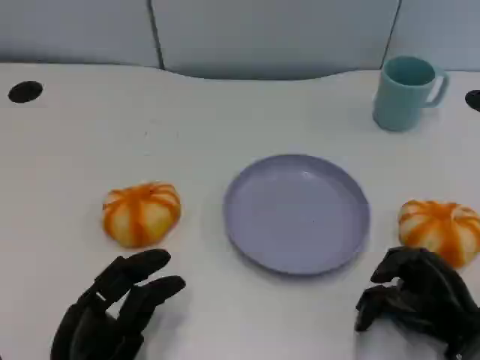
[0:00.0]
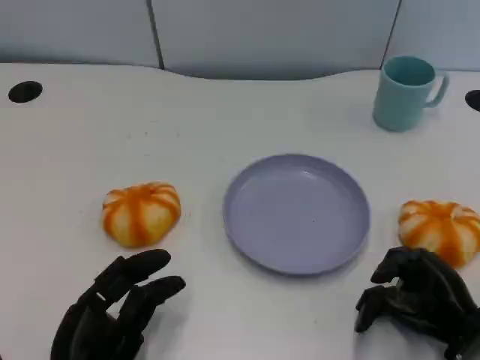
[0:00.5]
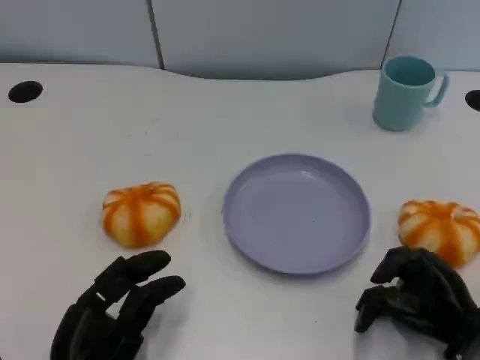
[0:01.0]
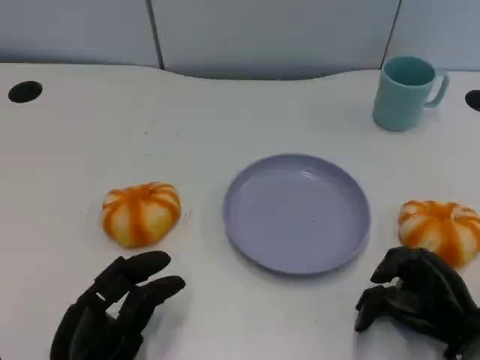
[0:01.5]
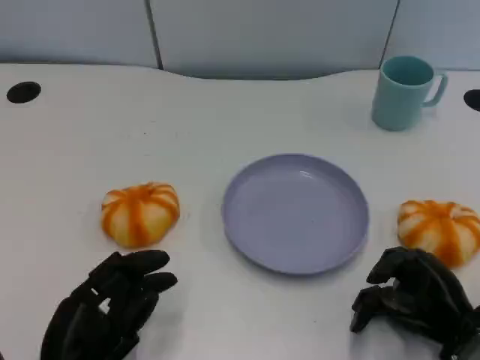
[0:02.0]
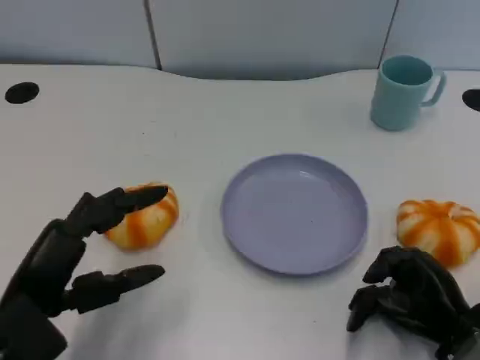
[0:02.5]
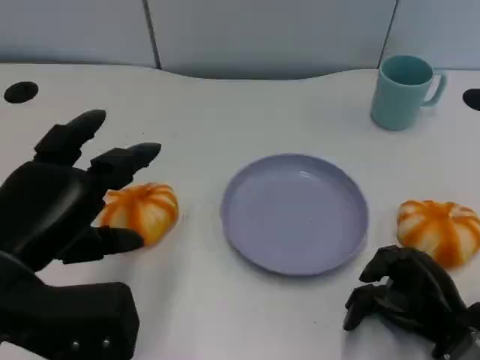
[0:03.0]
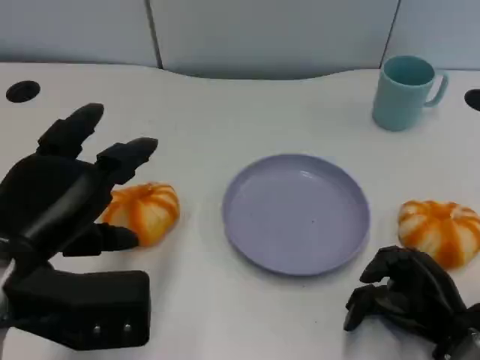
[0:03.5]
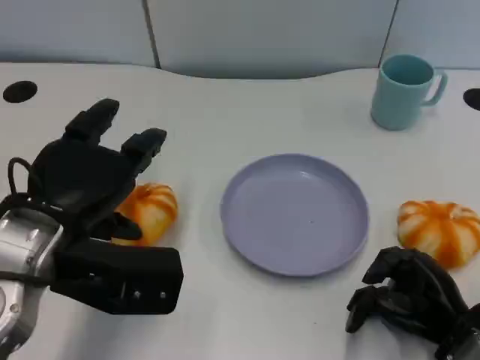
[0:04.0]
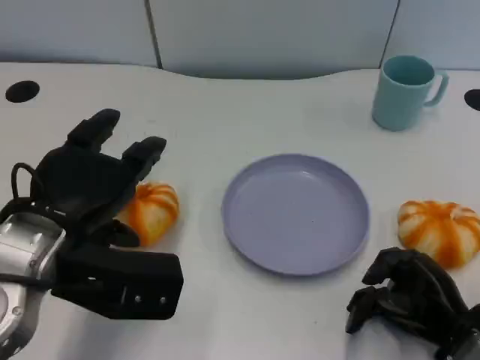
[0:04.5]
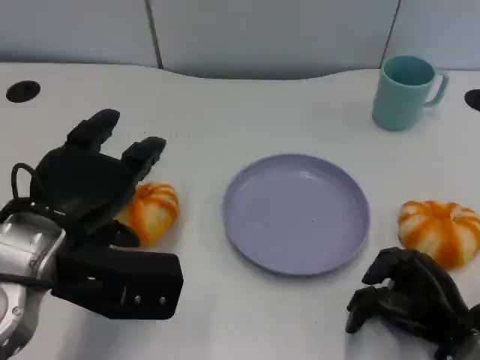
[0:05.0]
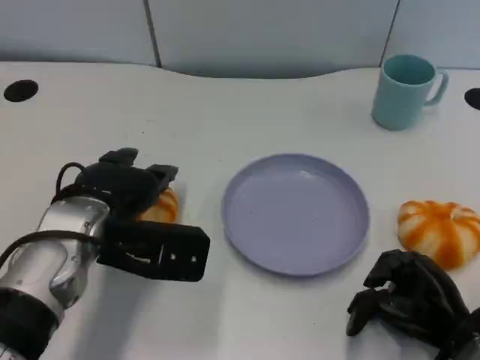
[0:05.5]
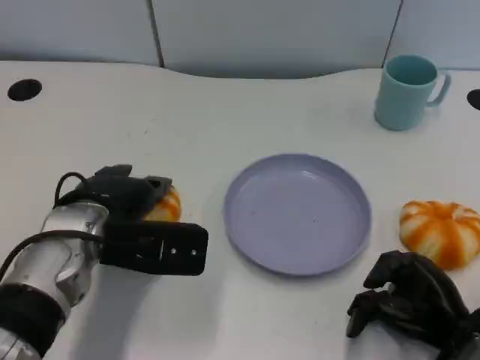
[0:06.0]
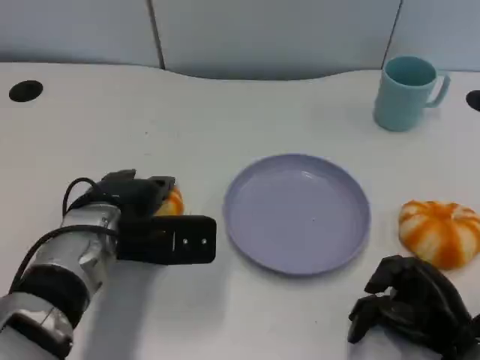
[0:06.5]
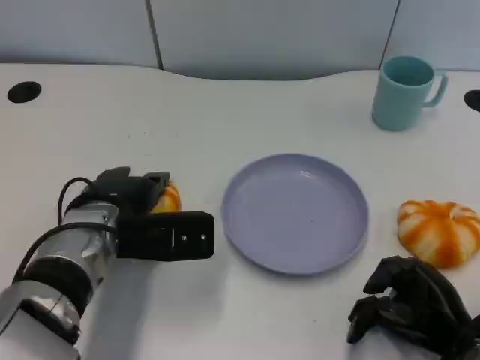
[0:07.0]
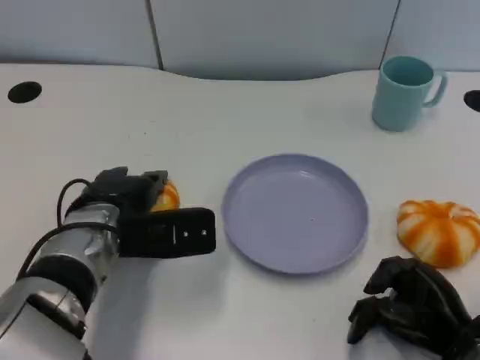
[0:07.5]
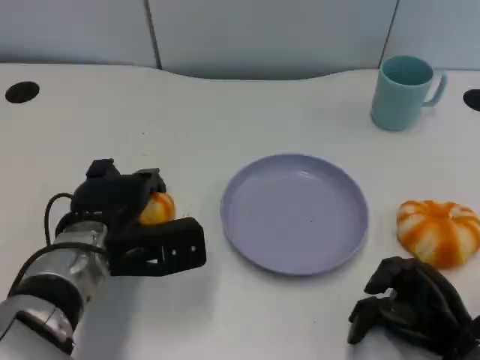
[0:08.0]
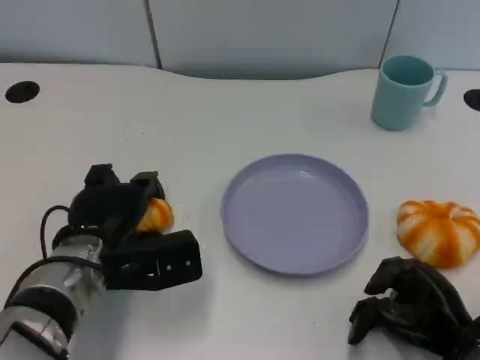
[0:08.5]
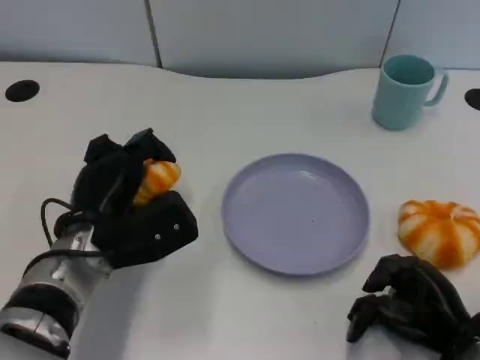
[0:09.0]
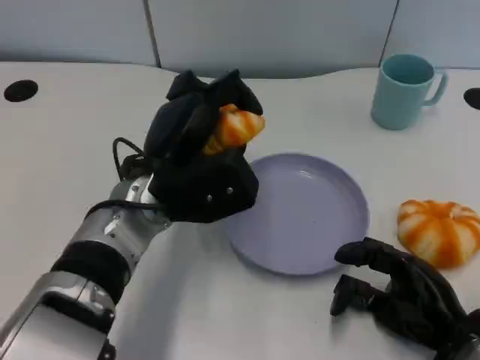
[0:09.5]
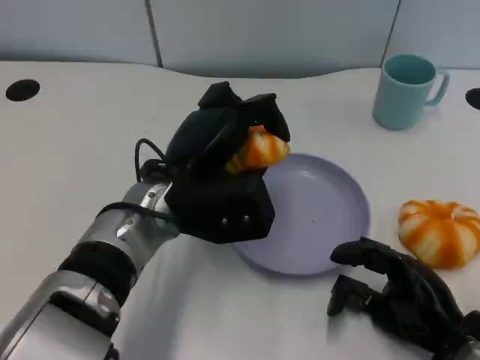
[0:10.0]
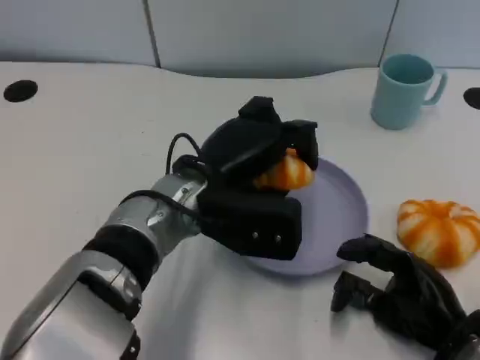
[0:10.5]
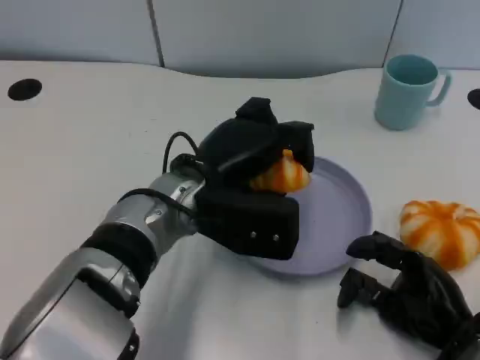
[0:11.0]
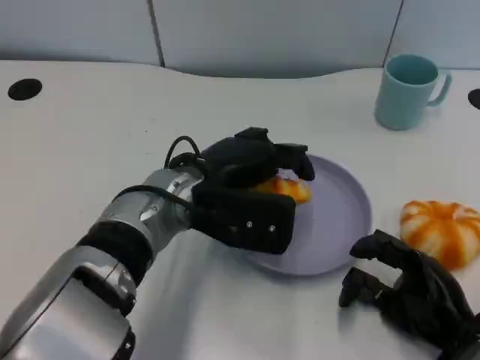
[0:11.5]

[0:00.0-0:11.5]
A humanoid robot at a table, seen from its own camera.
Task of the whole recording: Grasp the bread from the table and place it into the plate.
0:00.0 to 0:02.0: The hands make only small movements.
0:02.0 to 0:04.0: The left hand travels upward and forward by about 15 cm.
0:04.0 to 0:06.0: The left hand is displaced downward and forward by about 10 cm.
0:06.0 to 0:07.5: The hands make only small movements.
0:07.5 to 0:09.5: The left hand is displaced to the right by approximately 5 cm.

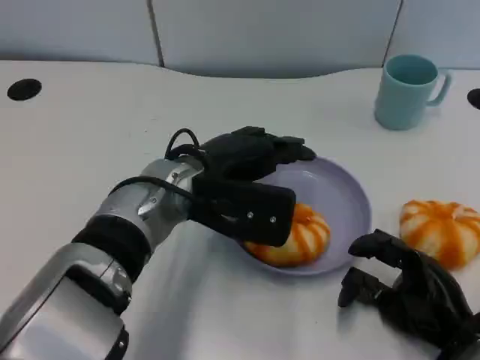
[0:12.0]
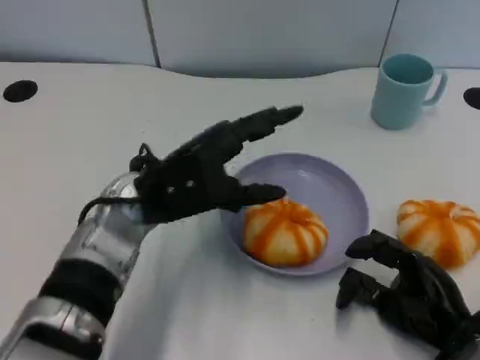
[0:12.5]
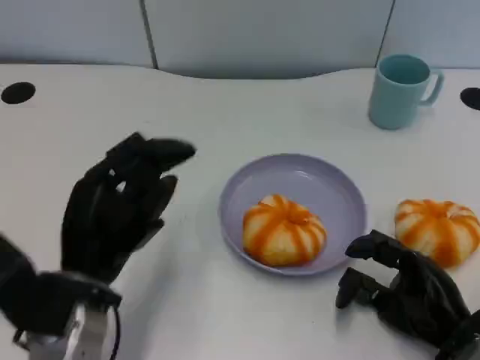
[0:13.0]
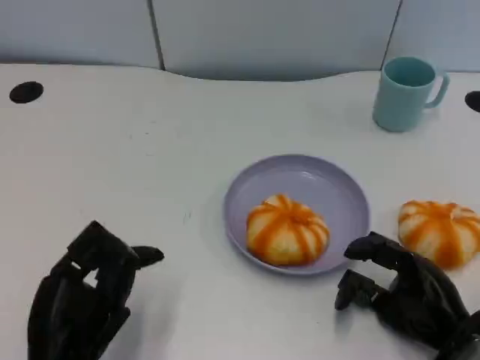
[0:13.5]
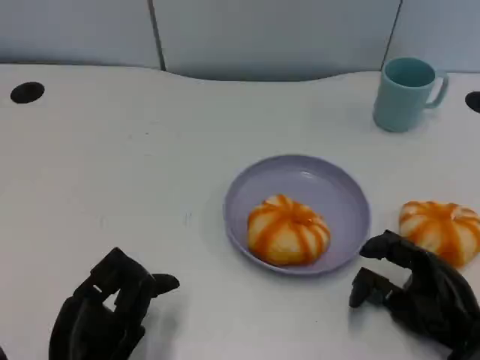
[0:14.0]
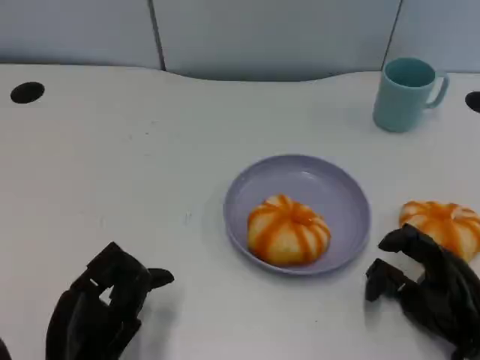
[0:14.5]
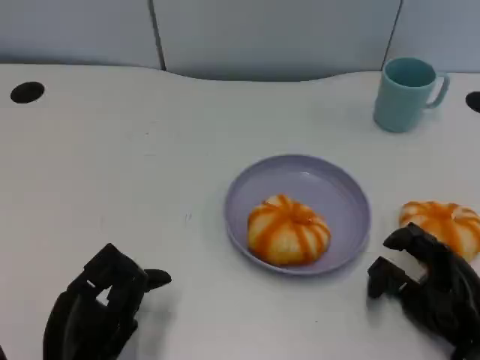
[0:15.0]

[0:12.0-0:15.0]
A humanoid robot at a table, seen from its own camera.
Task of the whole recording: Grasp the bread from the table and place it into the plate.
0:12.0 to 0:13.5: The left hand travels backward, to the left and downward by some 25 cm.
0:13.5 to 0:15.0: The hands move only a little.

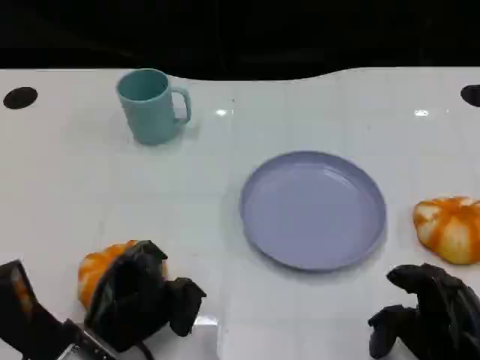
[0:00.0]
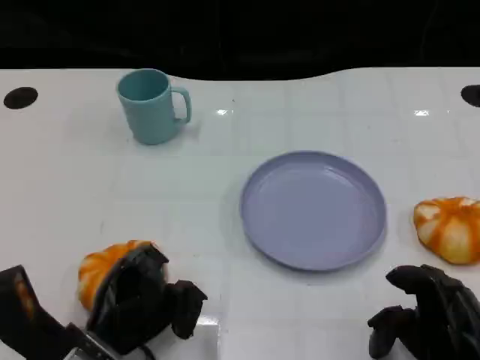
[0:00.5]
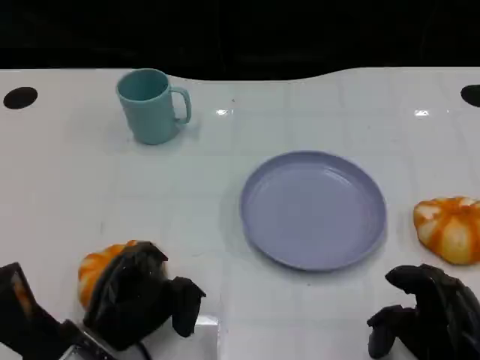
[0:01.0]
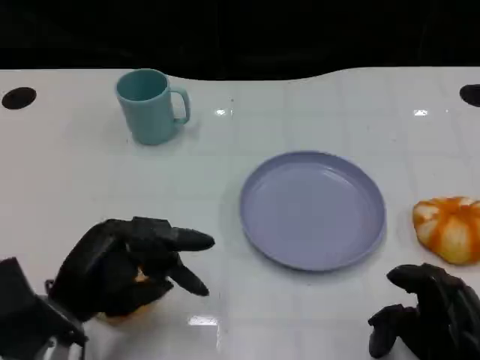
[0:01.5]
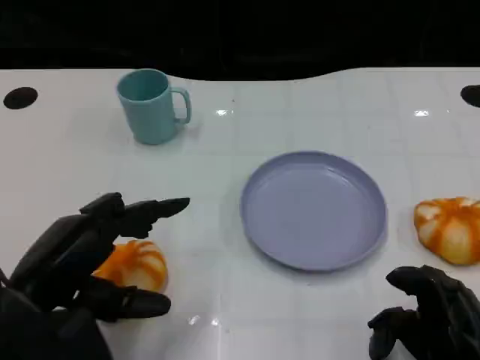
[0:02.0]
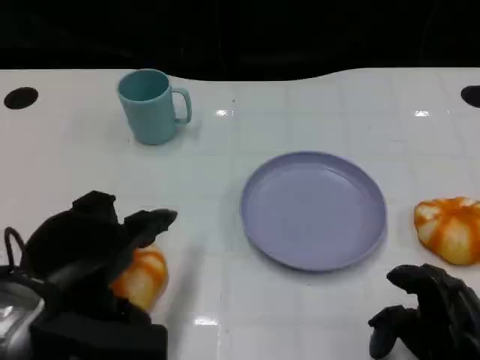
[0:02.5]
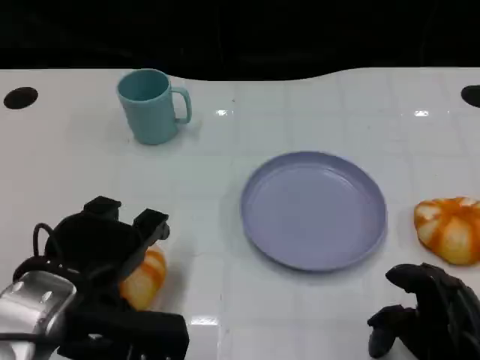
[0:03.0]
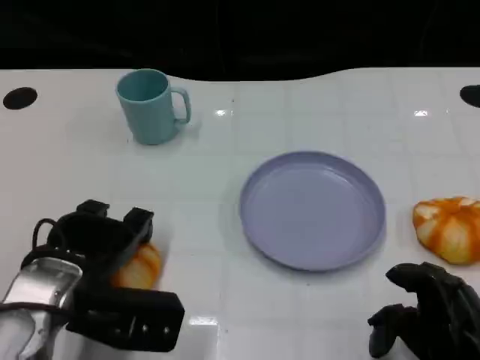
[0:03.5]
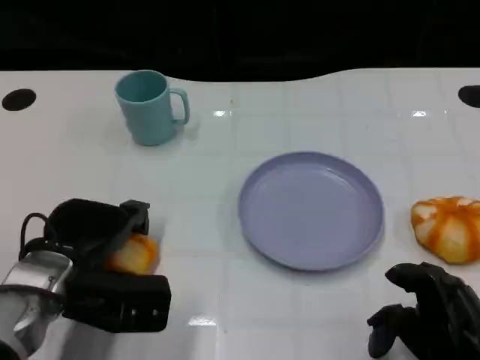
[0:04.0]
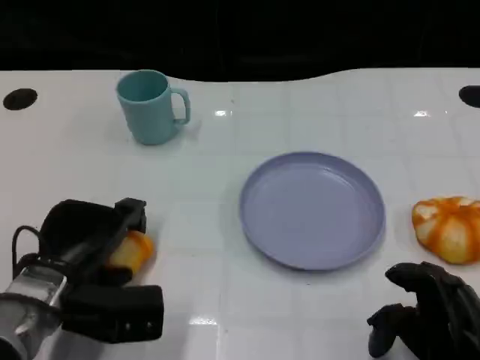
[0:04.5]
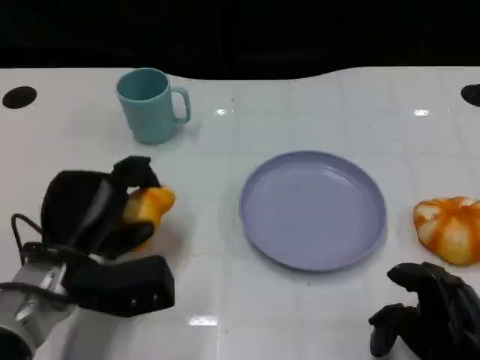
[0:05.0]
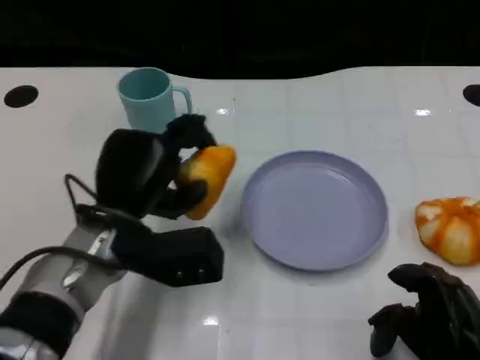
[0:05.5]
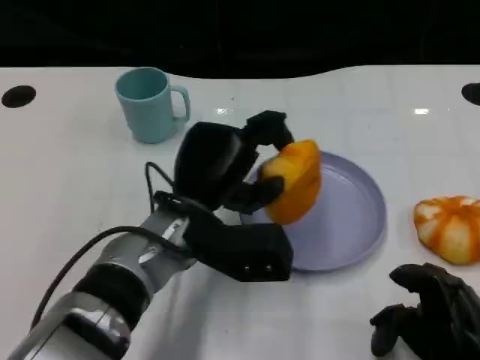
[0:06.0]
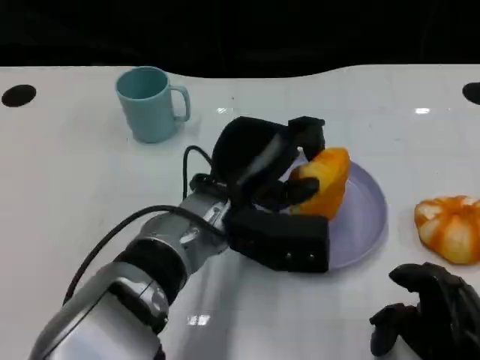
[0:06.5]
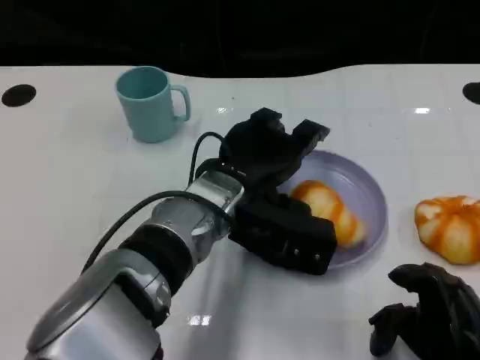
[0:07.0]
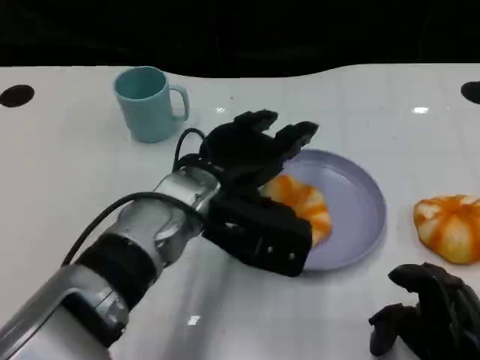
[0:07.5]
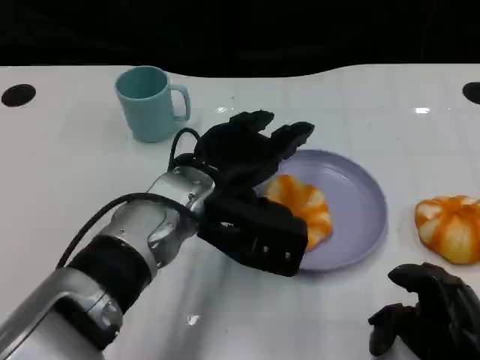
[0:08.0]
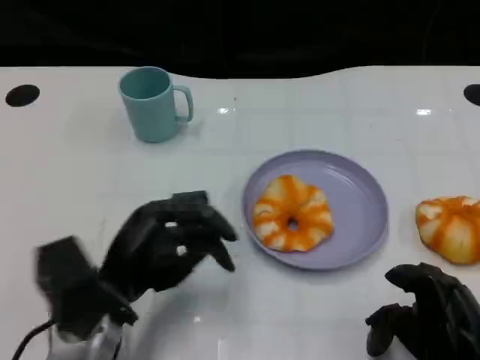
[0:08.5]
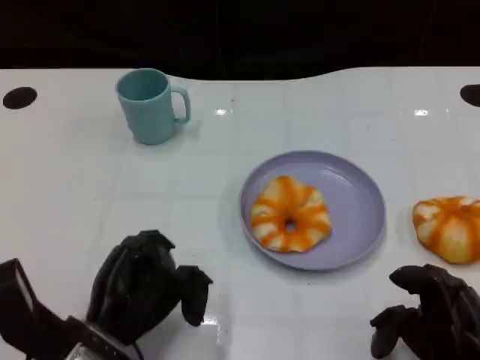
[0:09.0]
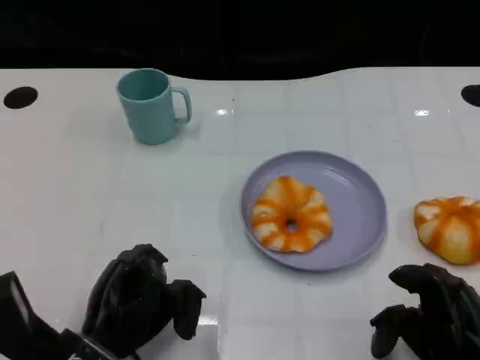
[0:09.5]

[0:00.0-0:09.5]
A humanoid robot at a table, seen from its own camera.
Task of the whole recording: Grasp the bread from the table and place it into the plate.
0:00.0 to 0:02.0: The left hand shifts about 10 cm upward.
0:02.0 to 0:04.0: The left hand goes approximately 10 cm forward and downward.
0:04.0 to 0:05.5: The left hand moves to the right, about 5 cm.
0:05.5 to 0:07.5: The left hand shifts about 5 cm to the right.
0:07.5 to 0:09.5: The left hand is displaced to the left, downward and backward by approximately 20 cm.

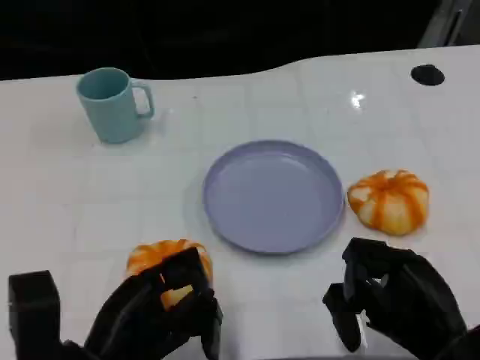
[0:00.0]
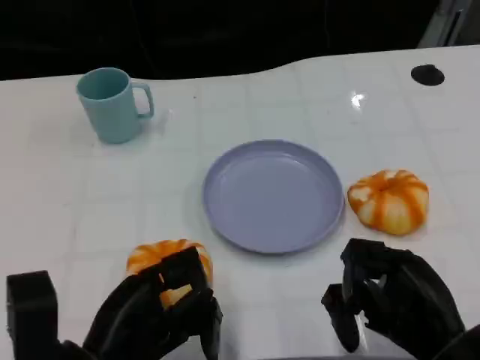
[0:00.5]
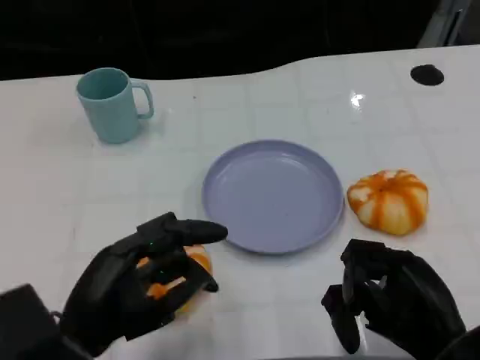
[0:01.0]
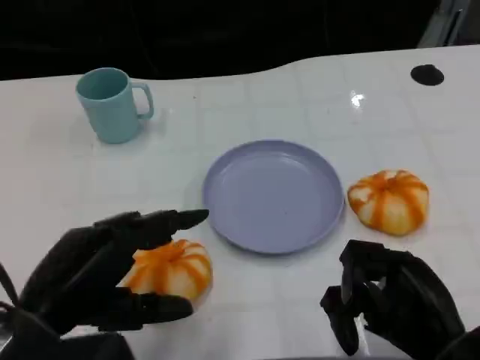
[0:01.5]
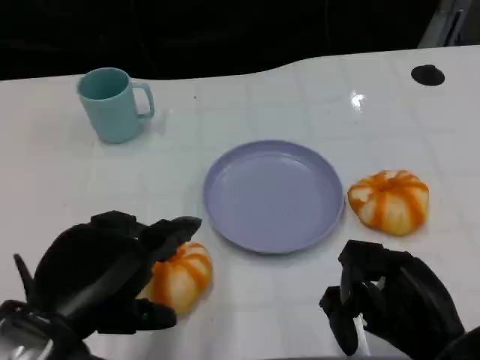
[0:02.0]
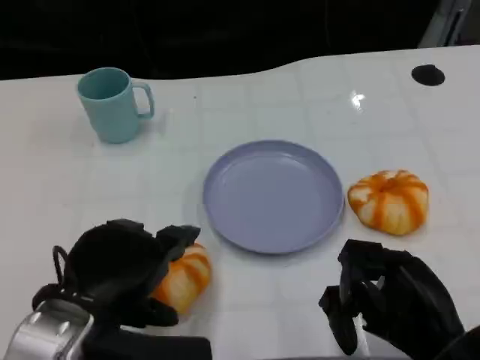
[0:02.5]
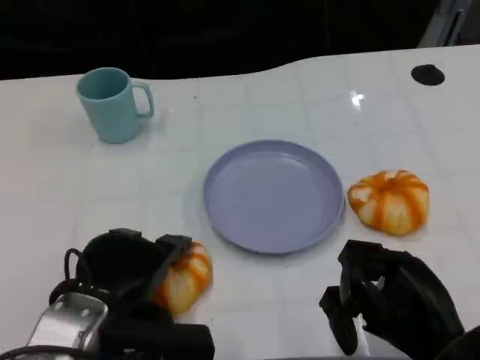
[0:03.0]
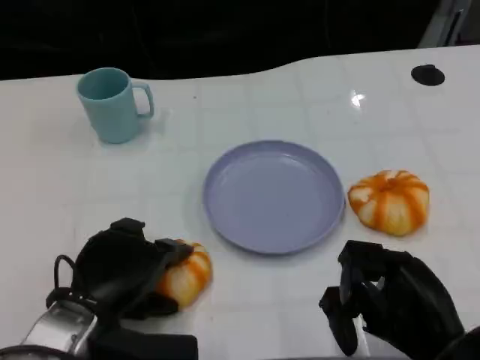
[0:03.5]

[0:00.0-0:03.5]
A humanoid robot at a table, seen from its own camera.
Task of the whole recording: Grasp the bread from the table and place it into the plate.
0:00.0 to 0:02.0: The left hand is displaced upward by roughly 10 cm.
0:02.0 to 0:03.5: The left hand shifts about 10 cm downward and forward.
